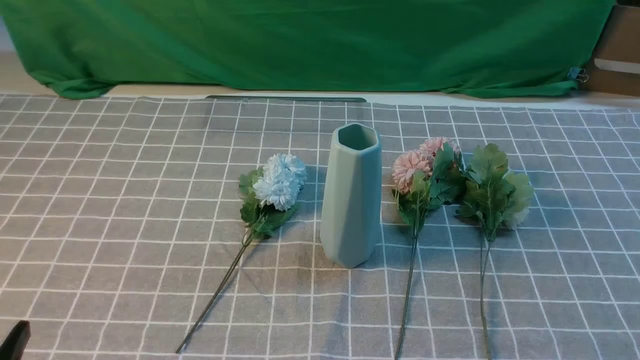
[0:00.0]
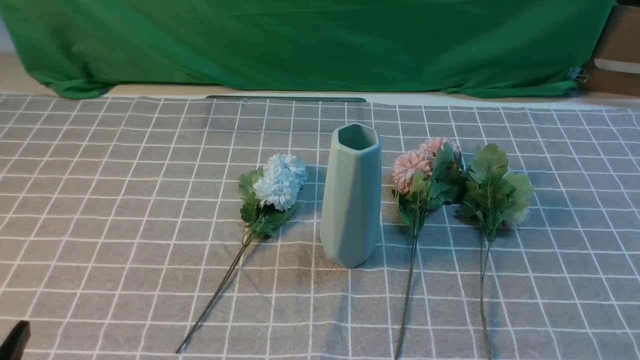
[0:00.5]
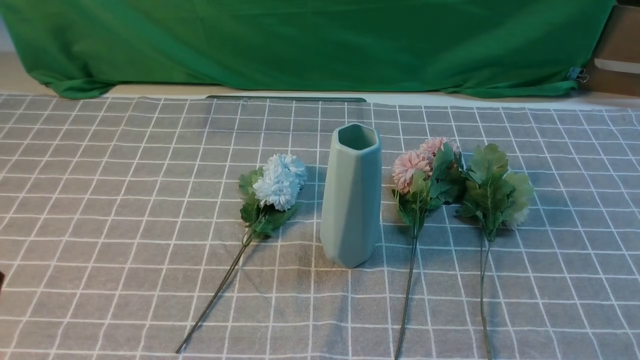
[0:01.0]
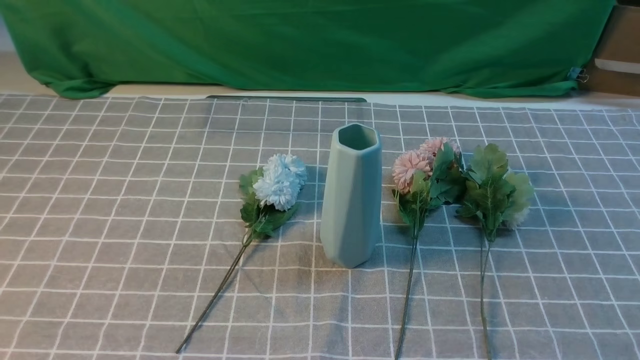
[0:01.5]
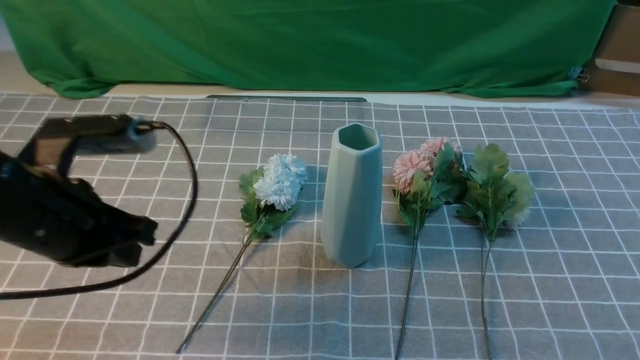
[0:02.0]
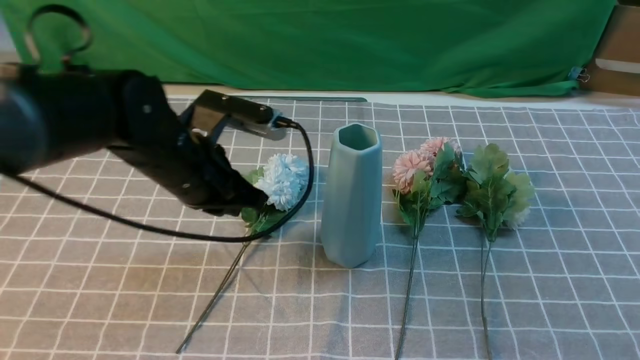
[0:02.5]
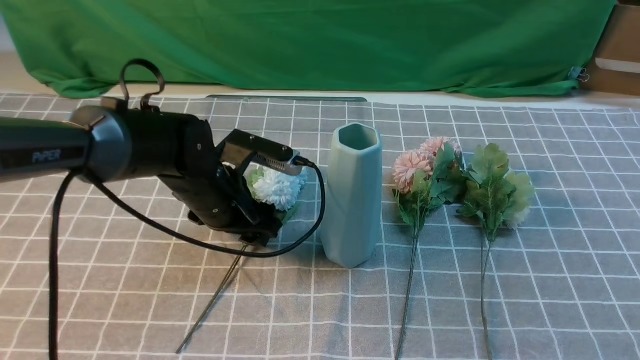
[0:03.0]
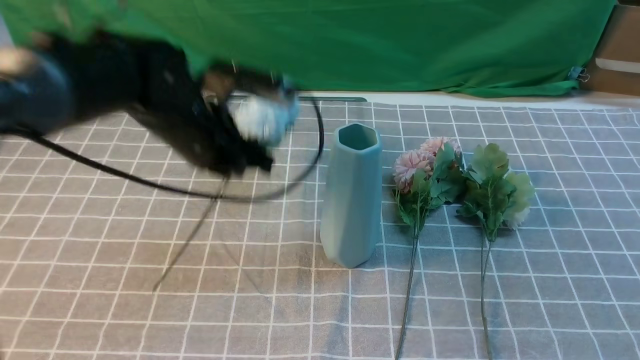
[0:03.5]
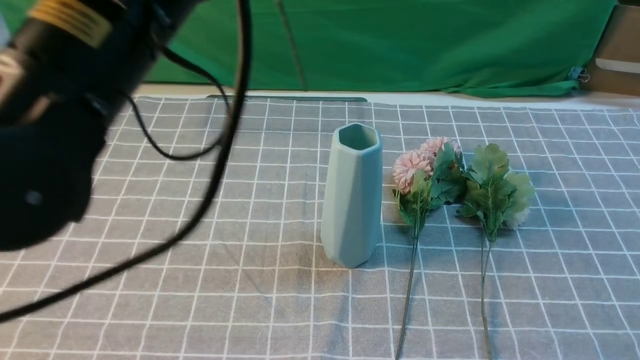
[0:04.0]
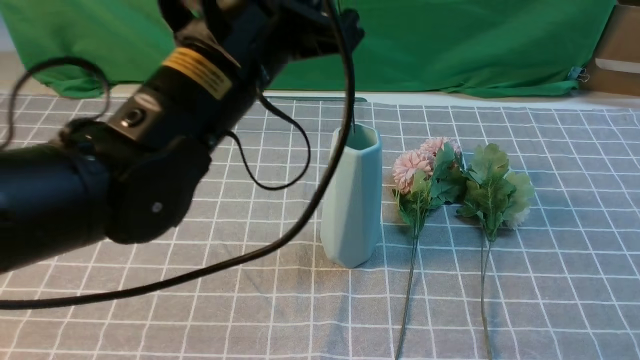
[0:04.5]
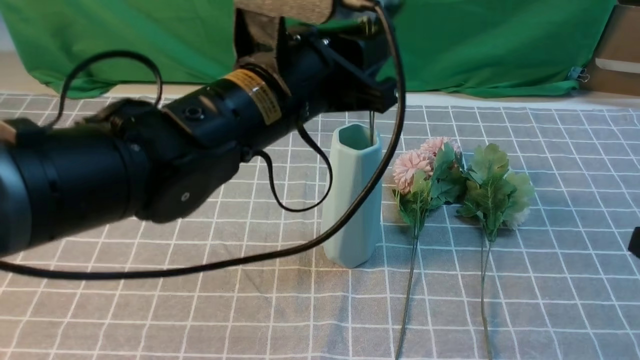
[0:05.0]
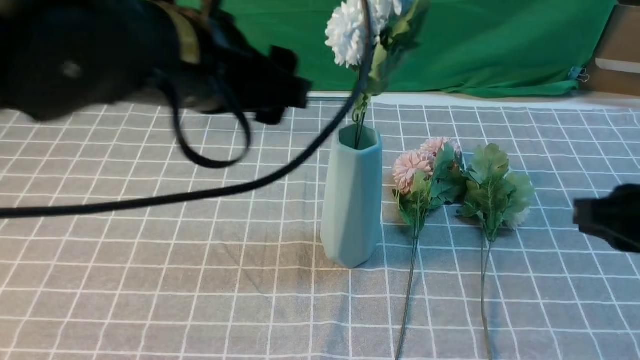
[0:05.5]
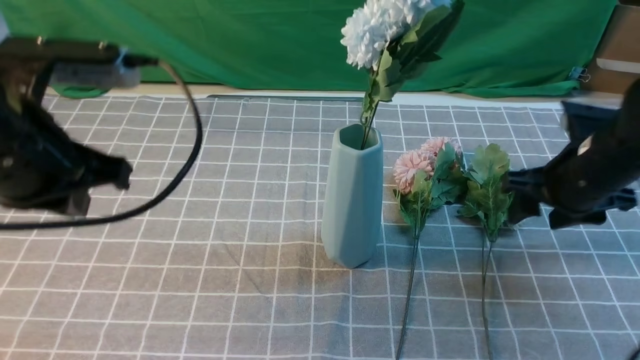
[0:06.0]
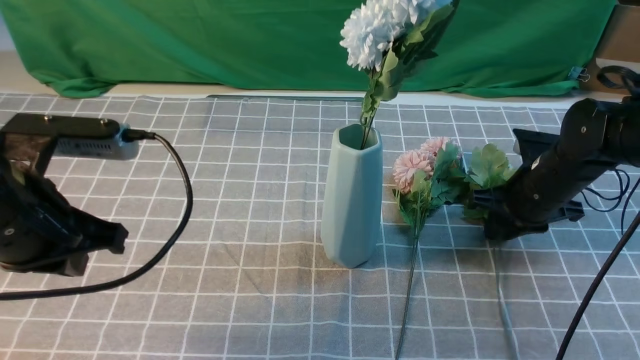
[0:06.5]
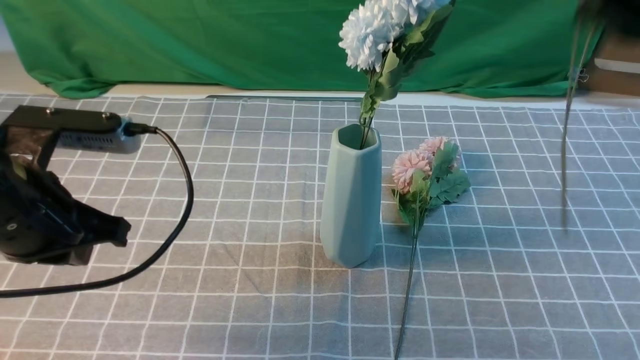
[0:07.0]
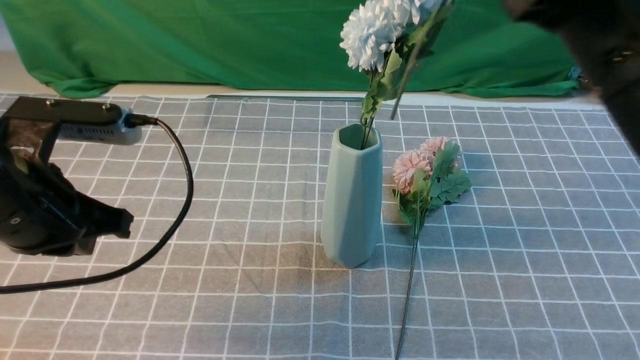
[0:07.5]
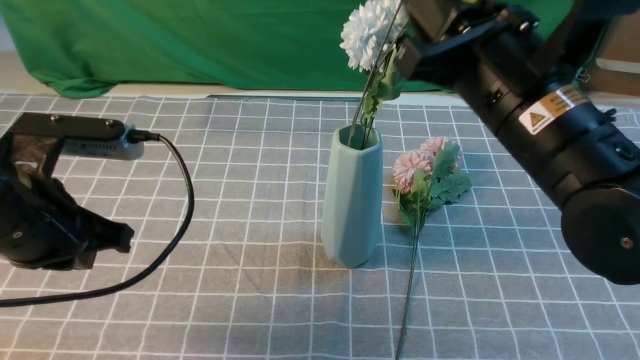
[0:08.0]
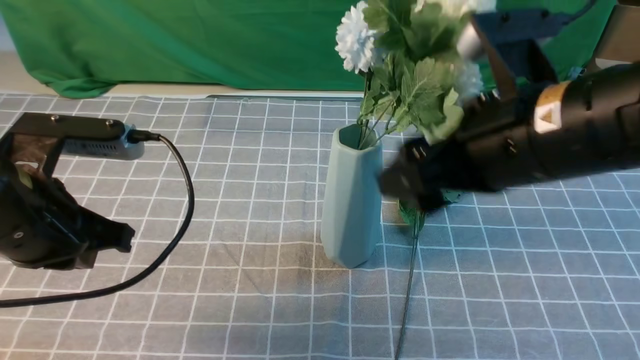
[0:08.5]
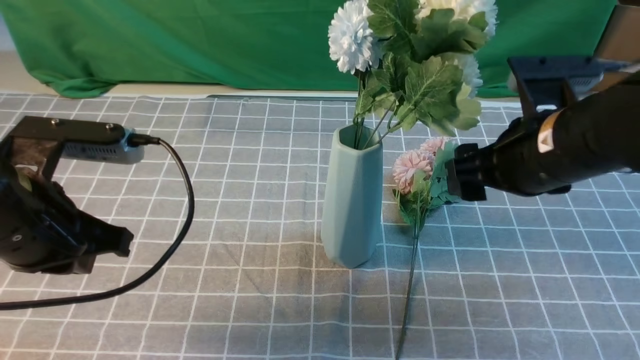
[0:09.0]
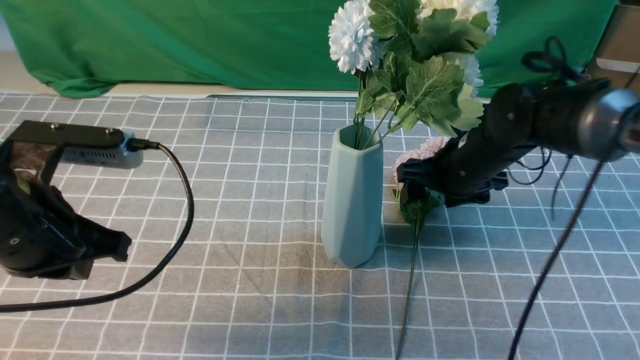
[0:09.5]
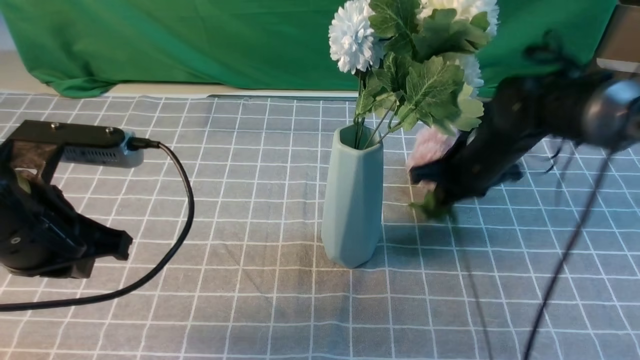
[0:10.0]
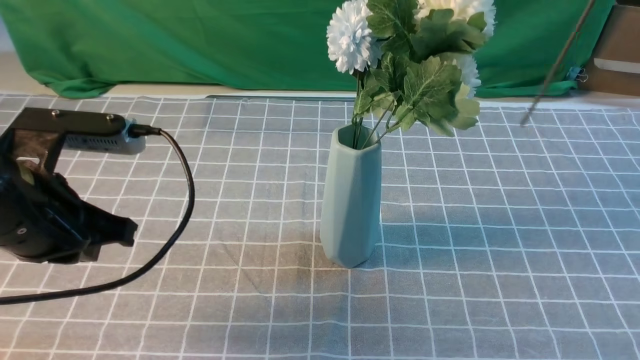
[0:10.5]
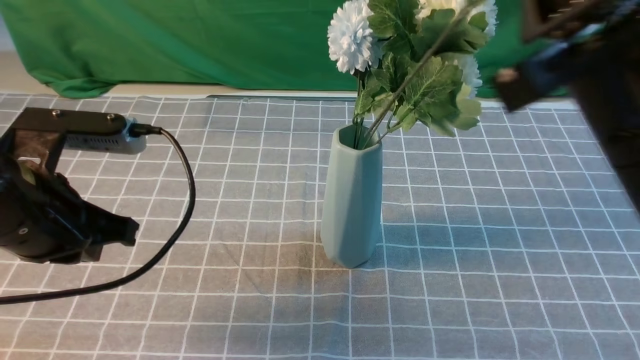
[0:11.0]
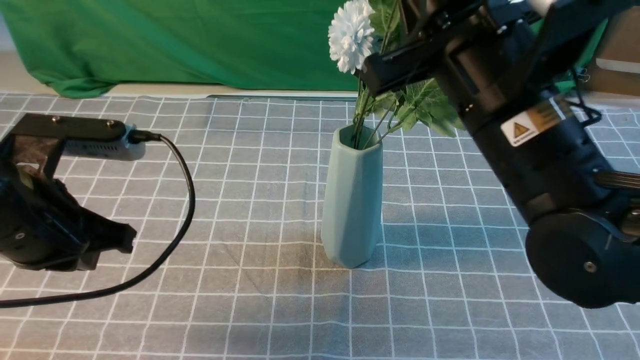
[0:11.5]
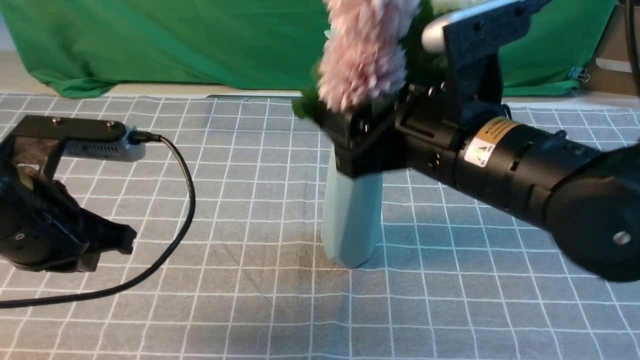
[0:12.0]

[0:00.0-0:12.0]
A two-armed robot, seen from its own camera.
Task of the whole recording: insert the flowers into the vase on the table with the grey tablecloth.
Step, 0:00.0 to 0:03.0: use the left arm to grab a bunch of fresh flowers.
Step, 0:03.5 to 0:05.0: use the left arm to insert the flowers into the vase.
Step, 0:05.5 to 0:06.5: use the right arm to grab a bunch of fresh flowers.
Step, 0:07.0 to 0:08.5: use the right arm to insert the flowers into the vase.
Step, 0:09.0 to 0:09.5: use the right arm to grab a bunch of fresh flowers.
0:00.0 to 0:02.0: The left gripper heads forward and upward, covering roughly 20 cm, and closes.
0:02.0 to 0:04.0: The left gripper shifts roughly 15 cm upward and to the right, and opens, then closes again. The right gripper goes about 10 cm upward and forward.
0:04.0 to 0:06.0: The left gripper shifts some 10 cm to the left and downward, and opens, then closes again. Meanwhile the right gripper travels forward and downward by some 25 cm, and opens.
0:06.0 to 0:08.0: The right gripper moves upward, to the left and backward, about 20 cm, and closes and opens again.
0:08.0 to 0:10.0: The right gripper travels forward and downward by approximately 15 cm, and opens, then closes again.
0:10.0 to 0:12.0: The right gripper moves backward, to the left and upward, about 20 cm, and opens its fingers.

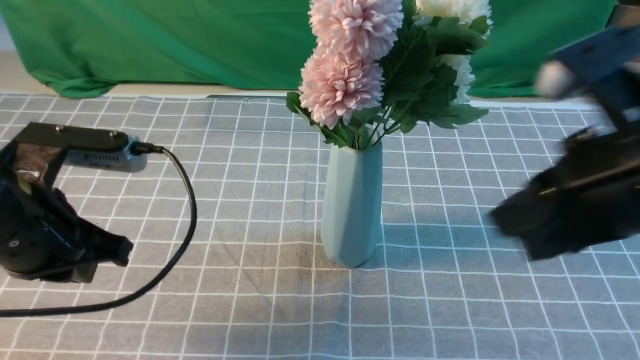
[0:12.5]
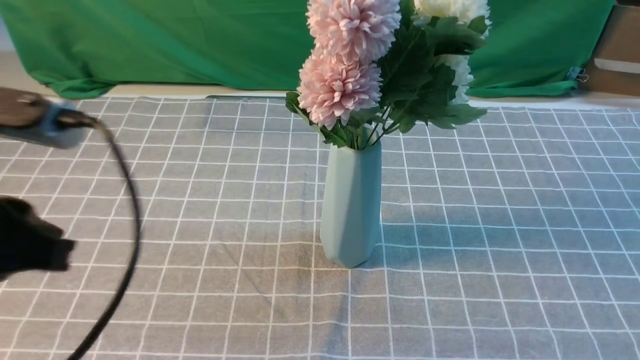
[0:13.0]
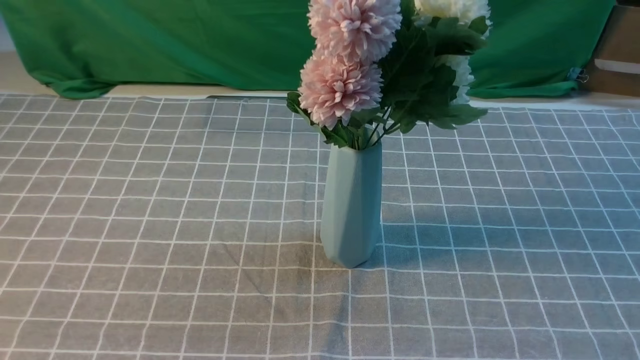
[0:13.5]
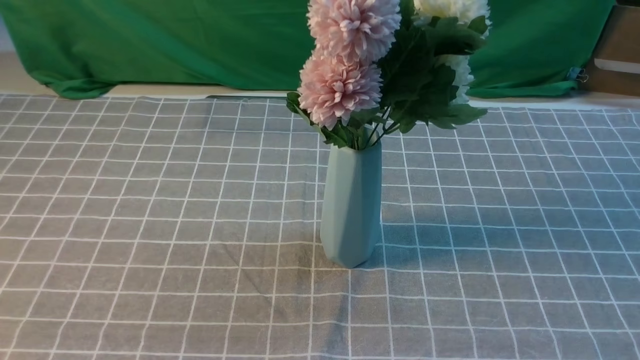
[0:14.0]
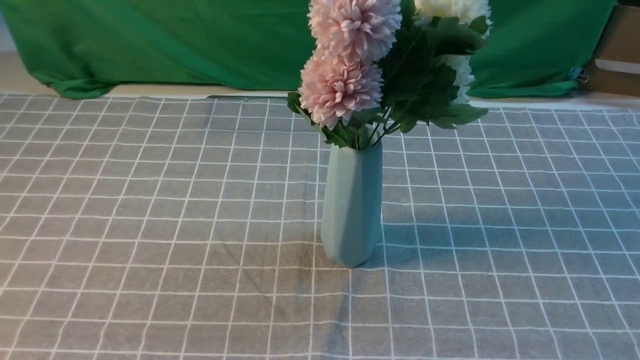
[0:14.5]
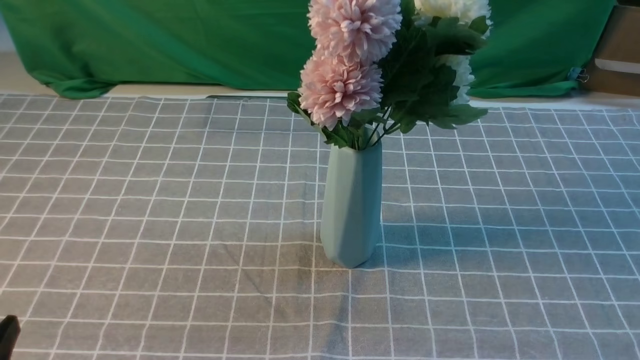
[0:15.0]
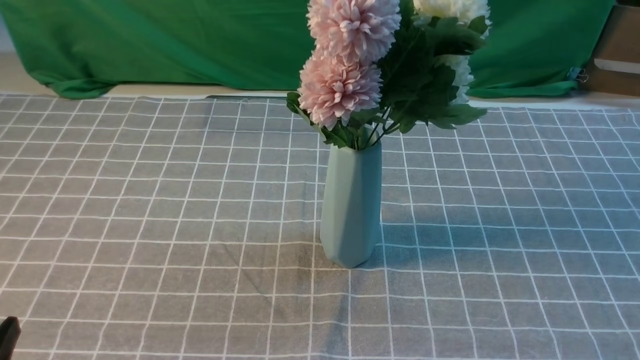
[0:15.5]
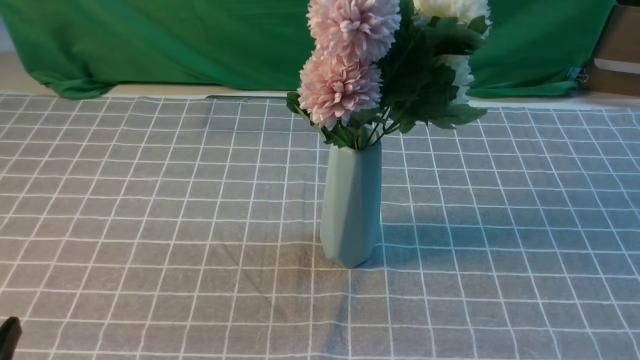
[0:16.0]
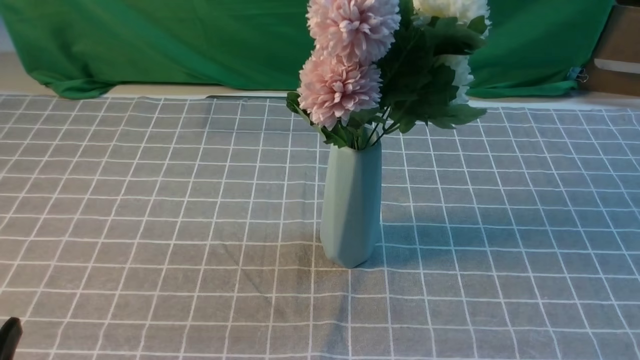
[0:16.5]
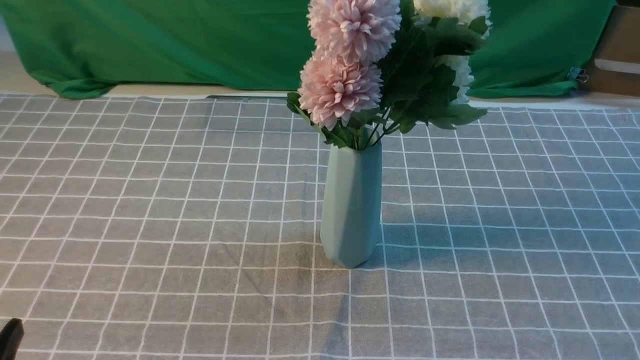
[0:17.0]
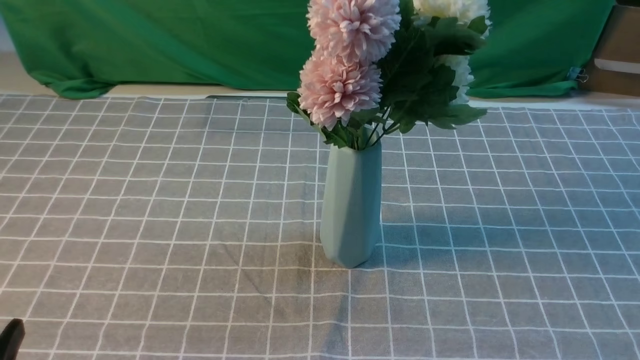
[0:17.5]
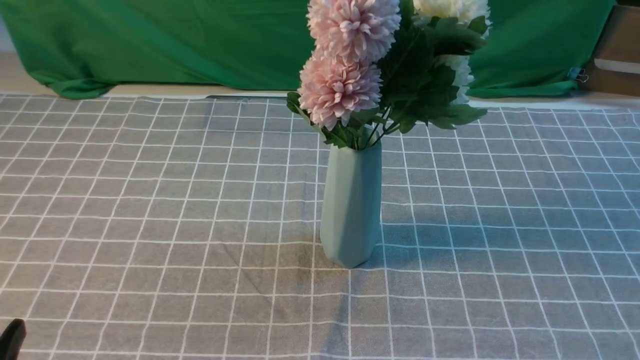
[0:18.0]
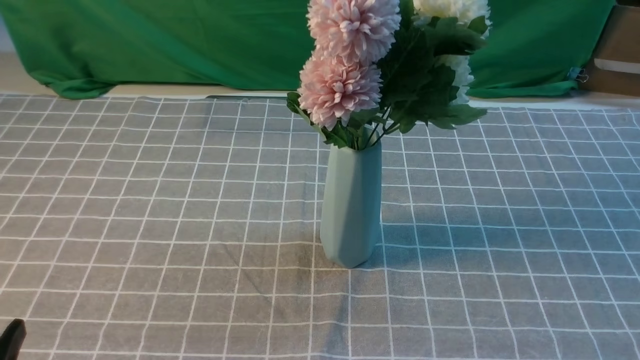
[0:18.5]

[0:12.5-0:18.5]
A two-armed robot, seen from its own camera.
Task of the whole recording: insert the flowers into the vase on the table with the grey tablecloth.
0:12.5 to 0:14.5: The right gripper shifts about 20 cm backward, to the right and downward. Meanwhile the left gripper heads backward, covering roughly 20 cm.
